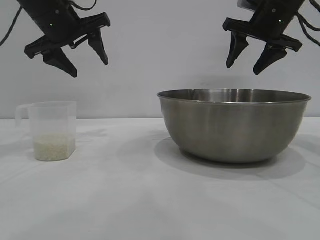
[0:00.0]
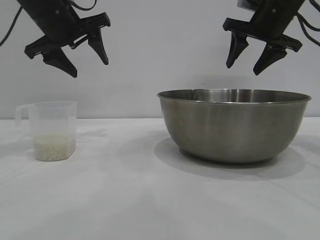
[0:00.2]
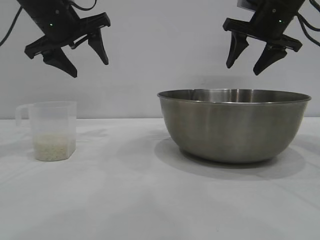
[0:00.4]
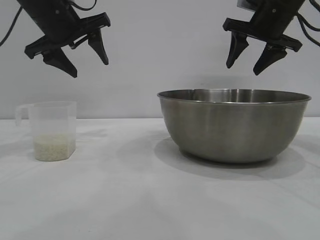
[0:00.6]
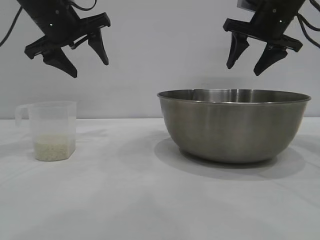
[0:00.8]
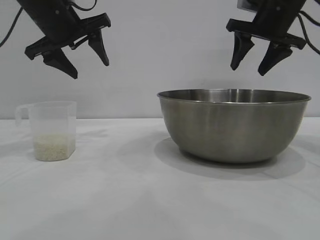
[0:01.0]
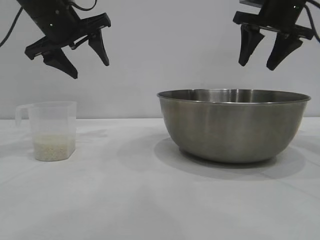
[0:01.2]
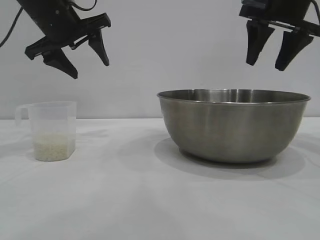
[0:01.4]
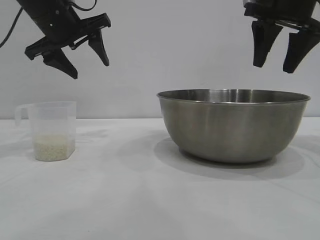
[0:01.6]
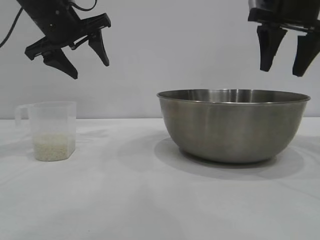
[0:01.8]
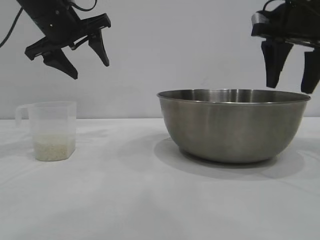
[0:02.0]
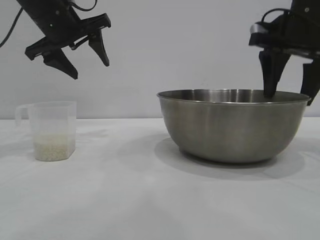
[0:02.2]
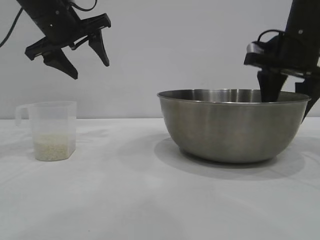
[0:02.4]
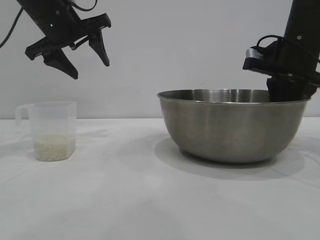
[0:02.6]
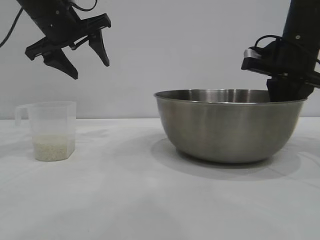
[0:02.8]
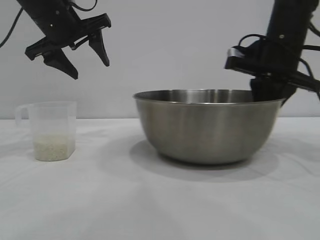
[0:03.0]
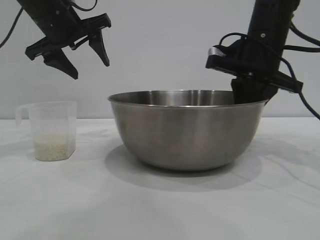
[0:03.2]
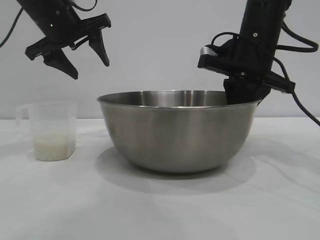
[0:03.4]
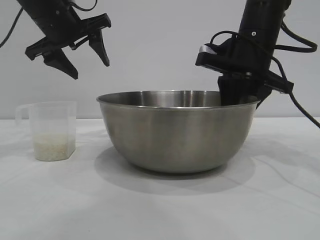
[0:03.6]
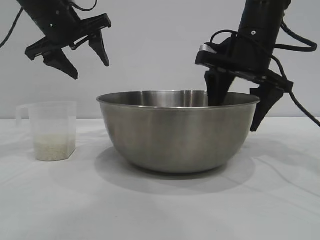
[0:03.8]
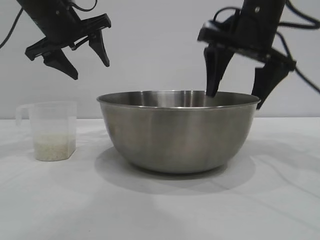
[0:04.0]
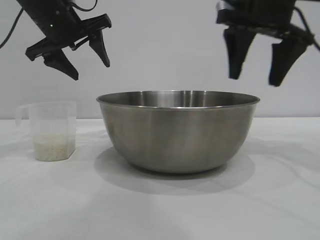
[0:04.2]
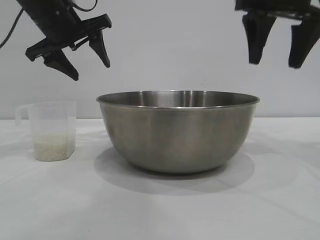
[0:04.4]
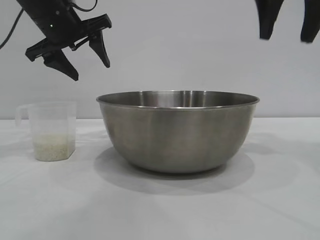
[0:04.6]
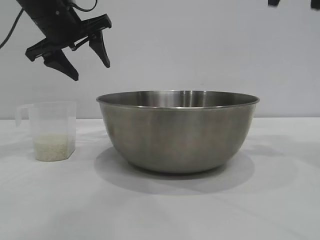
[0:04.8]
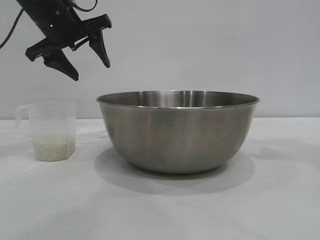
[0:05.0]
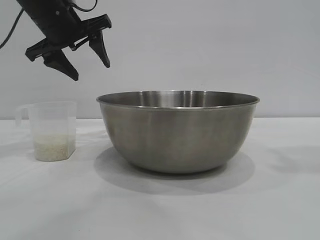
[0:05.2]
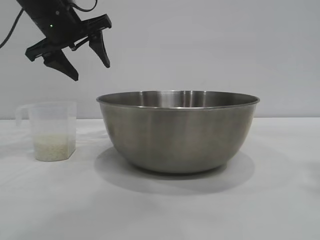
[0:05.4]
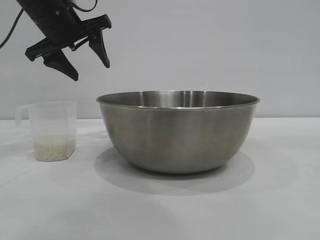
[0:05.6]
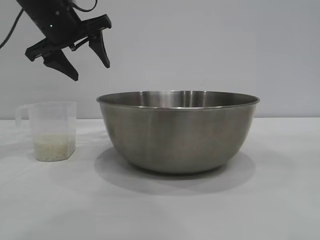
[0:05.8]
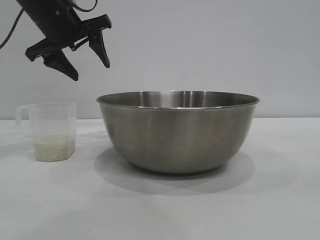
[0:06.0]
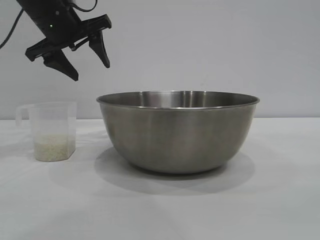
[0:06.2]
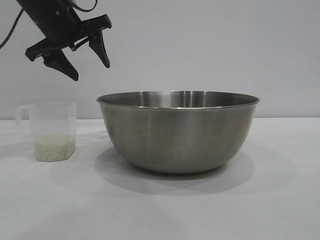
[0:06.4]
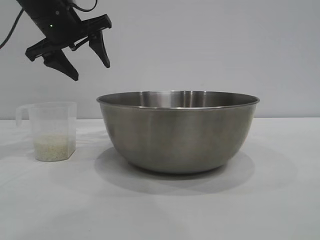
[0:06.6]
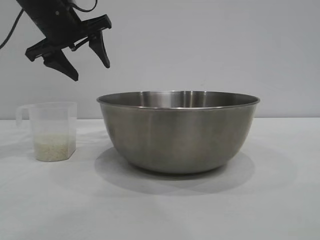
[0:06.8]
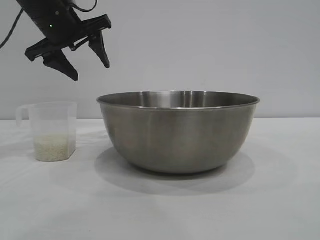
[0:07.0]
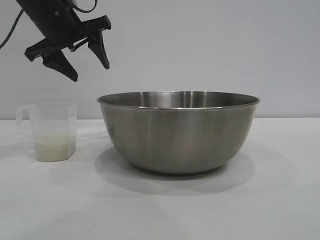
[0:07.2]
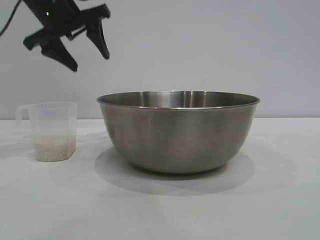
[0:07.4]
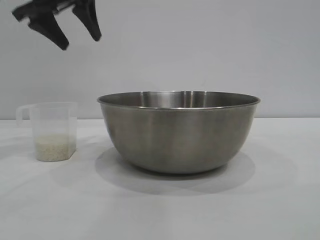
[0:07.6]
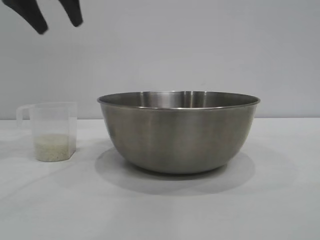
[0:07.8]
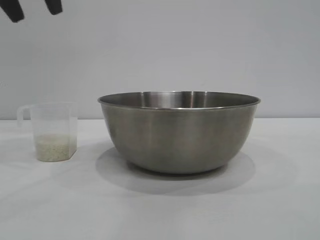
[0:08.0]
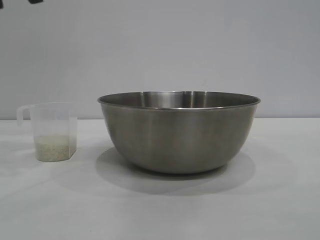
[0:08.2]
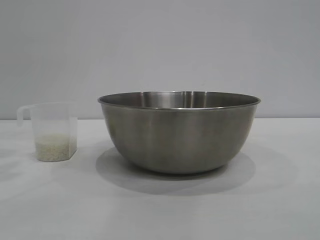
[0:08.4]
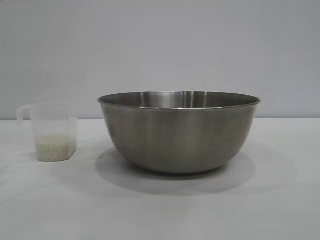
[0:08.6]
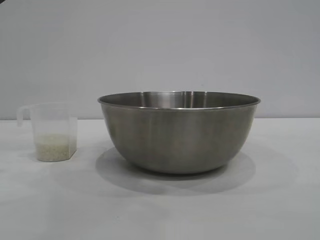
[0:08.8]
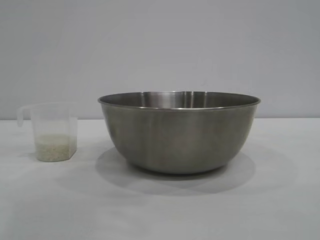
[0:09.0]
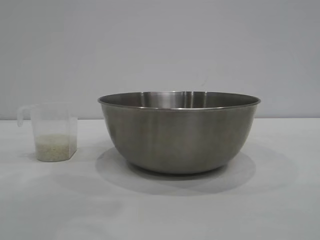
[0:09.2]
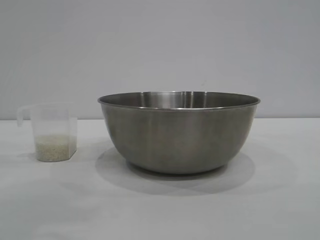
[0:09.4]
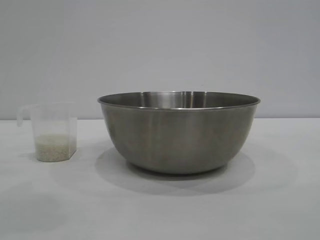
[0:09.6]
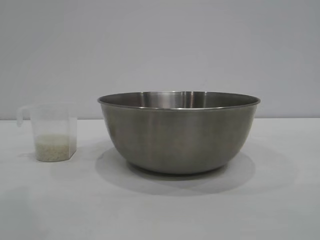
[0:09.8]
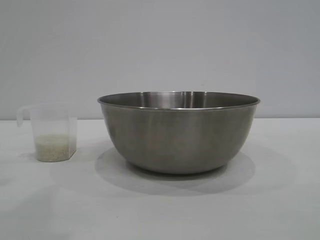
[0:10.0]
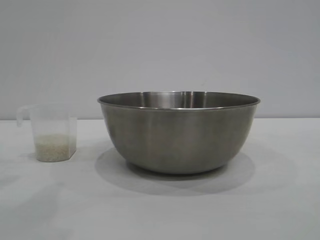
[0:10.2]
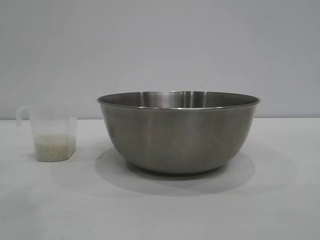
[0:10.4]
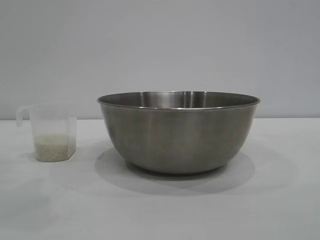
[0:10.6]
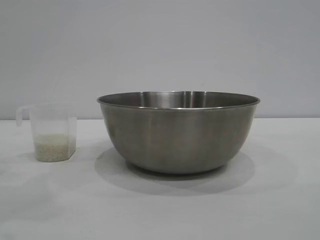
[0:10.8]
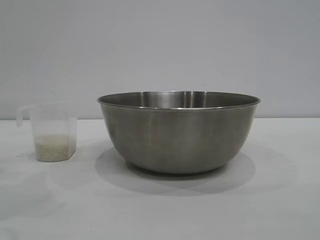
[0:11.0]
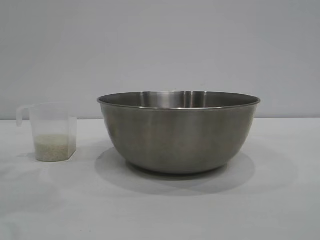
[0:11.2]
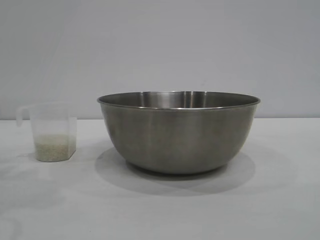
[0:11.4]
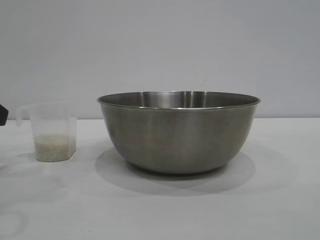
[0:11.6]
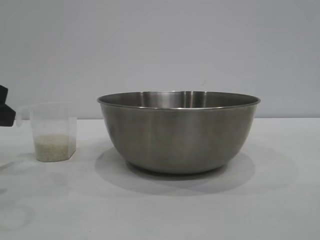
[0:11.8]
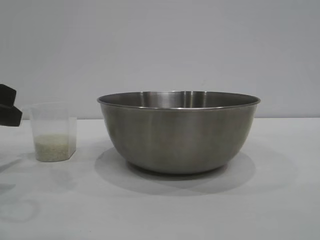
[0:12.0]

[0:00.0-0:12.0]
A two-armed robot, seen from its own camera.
Task of the whole recording: the right gripper grasp the rice container and place it in the center of the table, the left gripper grasp the rice scoop and pour the rice into the rice container.
Step, 0:00.0 to 0:04.4: Move the bowl to the center of view with the right gripper.

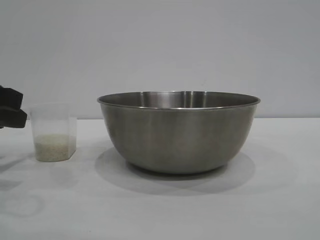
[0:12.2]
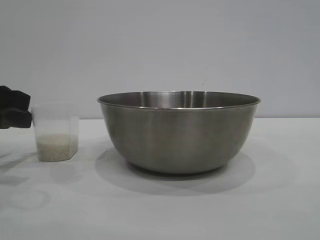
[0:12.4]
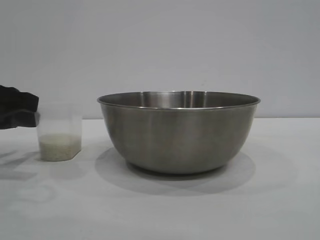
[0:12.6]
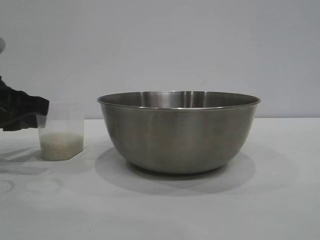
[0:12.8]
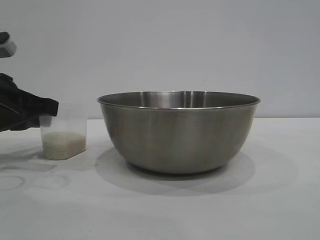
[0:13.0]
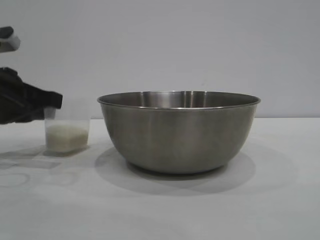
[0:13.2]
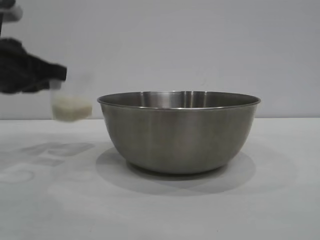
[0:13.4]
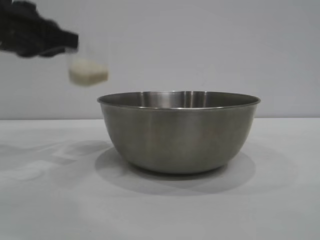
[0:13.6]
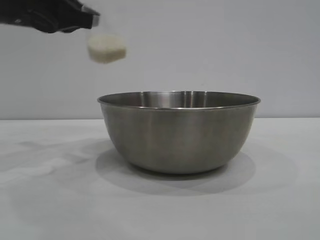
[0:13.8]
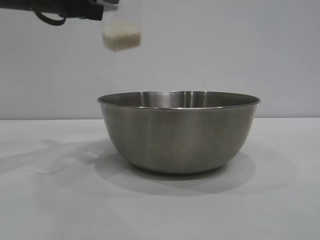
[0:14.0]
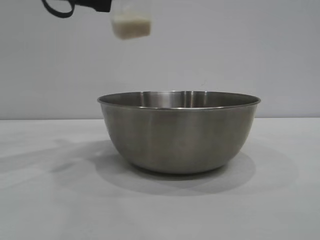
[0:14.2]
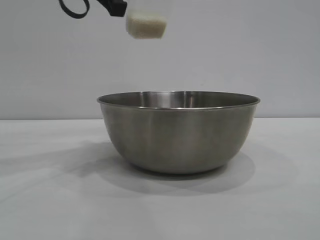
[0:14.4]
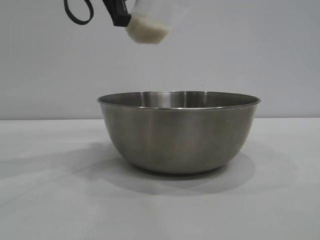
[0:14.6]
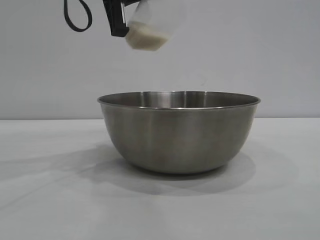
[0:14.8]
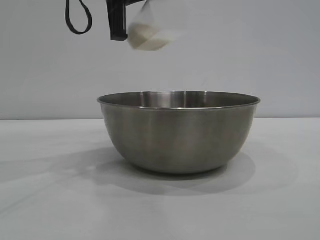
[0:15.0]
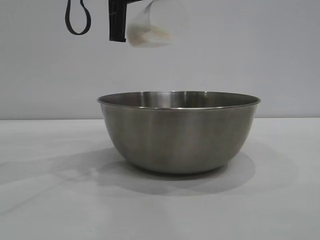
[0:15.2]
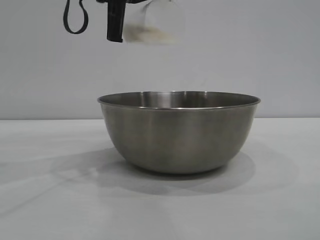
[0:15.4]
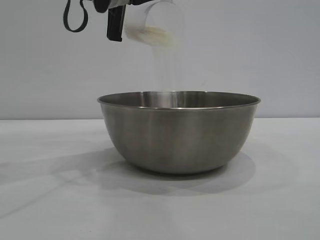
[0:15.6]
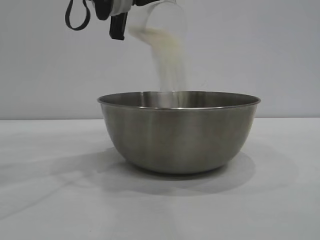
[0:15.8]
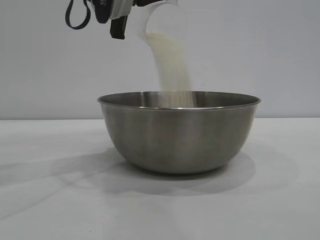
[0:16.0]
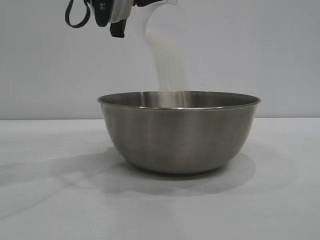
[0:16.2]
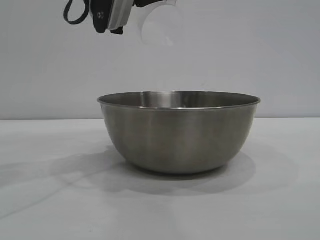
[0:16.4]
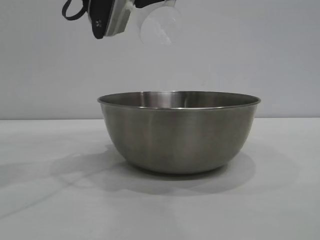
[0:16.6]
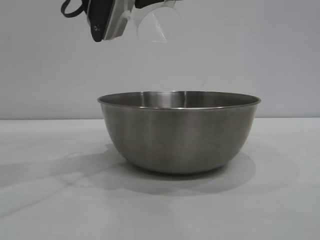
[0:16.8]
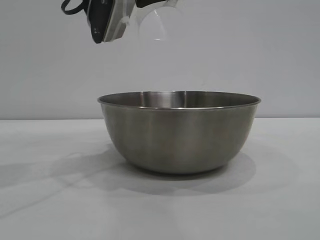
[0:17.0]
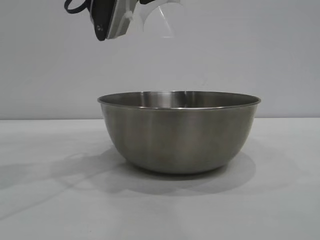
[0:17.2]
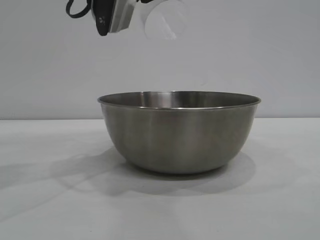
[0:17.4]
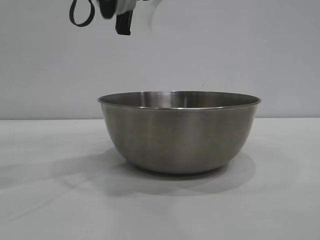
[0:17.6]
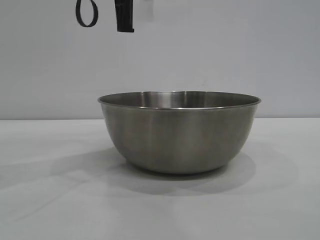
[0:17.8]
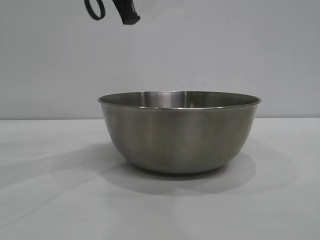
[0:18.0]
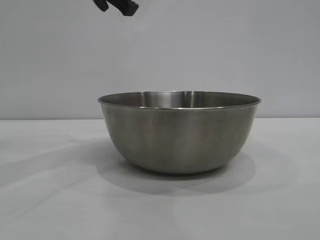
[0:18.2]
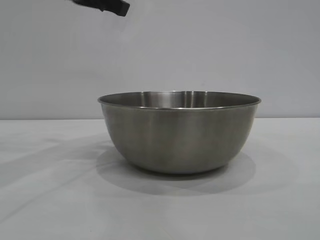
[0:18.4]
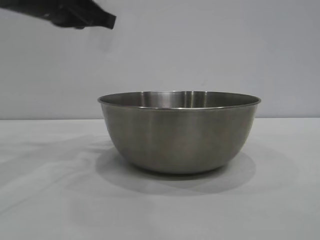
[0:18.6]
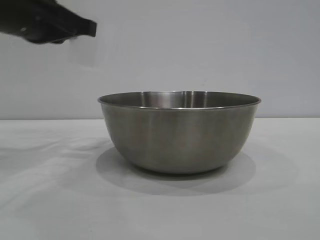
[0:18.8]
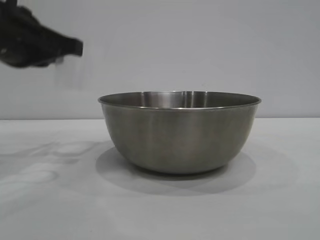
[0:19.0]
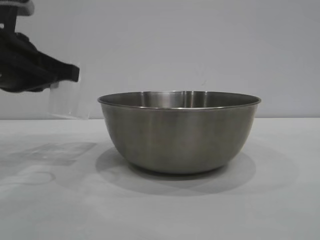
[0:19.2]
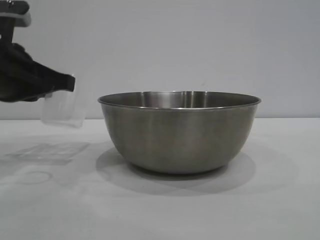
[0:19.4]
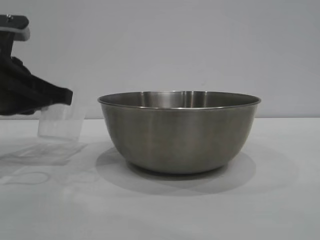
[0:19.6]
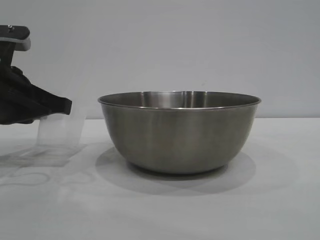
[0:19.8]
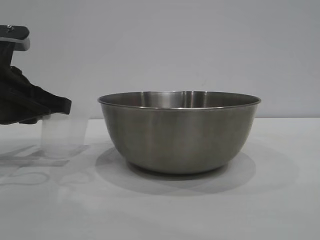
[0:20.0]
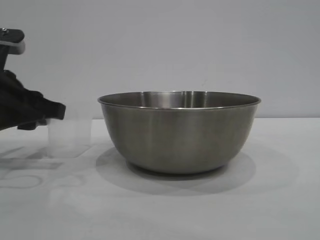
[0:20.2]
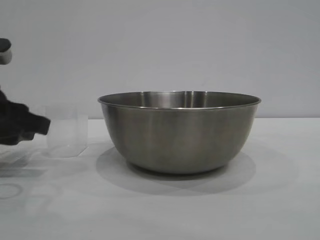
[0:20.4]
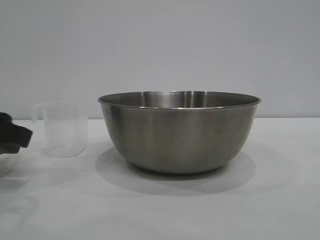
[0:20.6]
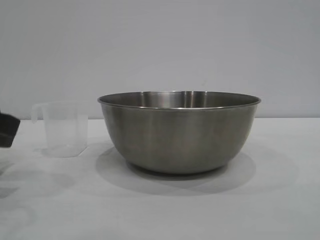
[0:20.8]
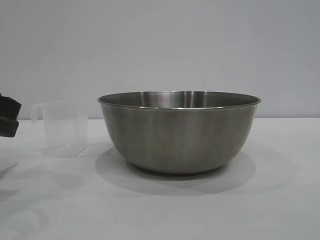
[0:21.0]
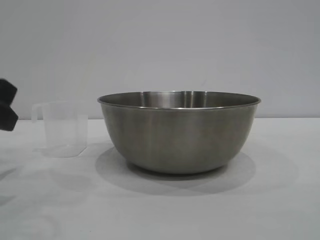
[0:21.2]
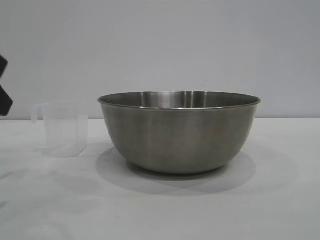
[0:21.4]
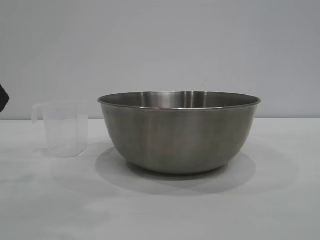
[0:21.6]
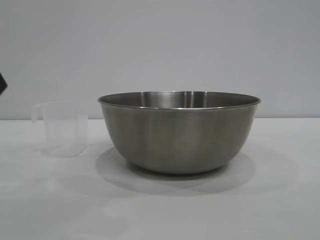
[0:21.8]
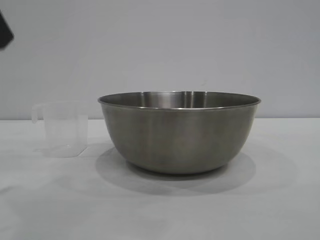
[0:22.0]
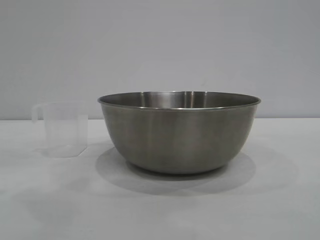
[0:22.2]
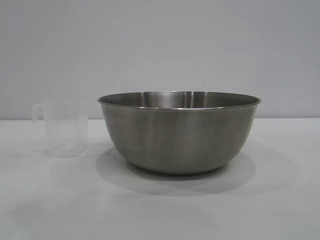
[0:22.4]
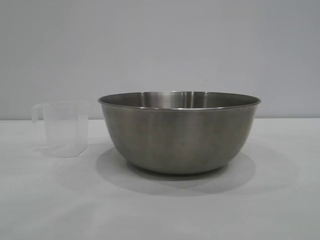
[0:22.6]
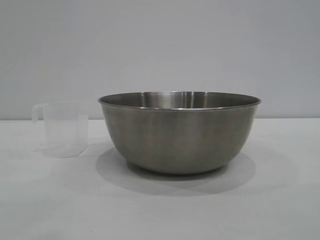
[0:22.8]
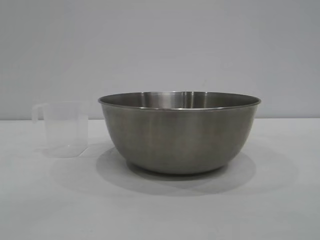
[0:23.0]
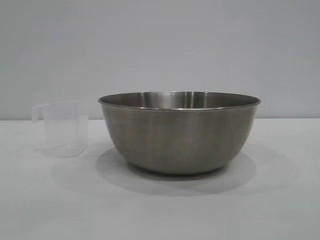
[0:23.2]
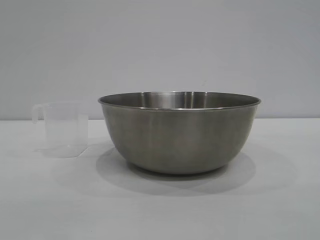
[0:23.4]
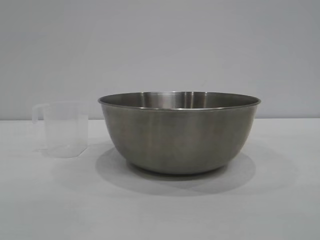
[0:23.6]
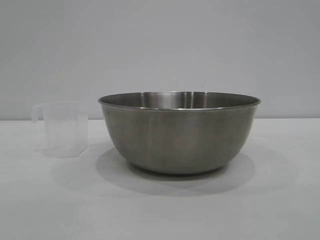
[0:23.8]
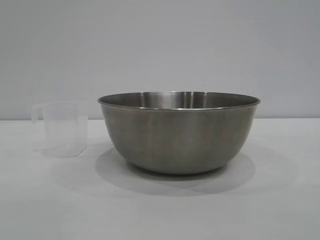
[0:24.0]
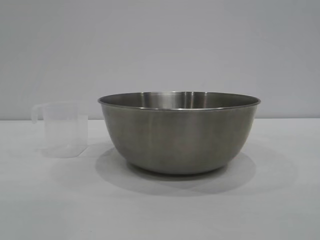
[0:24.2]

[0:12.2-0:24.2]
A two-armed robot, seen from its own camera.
Task of the whole recording: the right gripper grasp the rice container and place it in the center of the table, the left gripper grasp the rice scoop and pour the rice into the rice container.
Step, 0:13.6 to 0:17.6: Pour the rice from the cup into the bowl with the left gripper.
Step, 0:17.8 to 0:20.4: Place the cup on the table with the left gripper.
